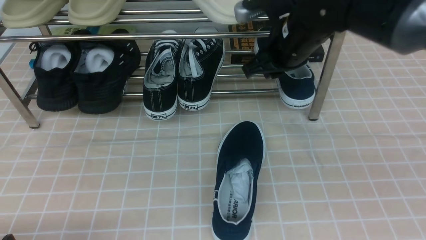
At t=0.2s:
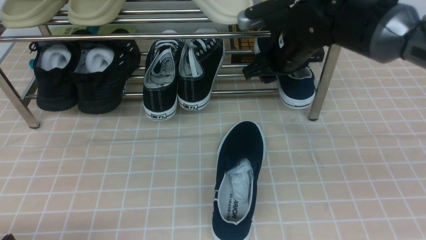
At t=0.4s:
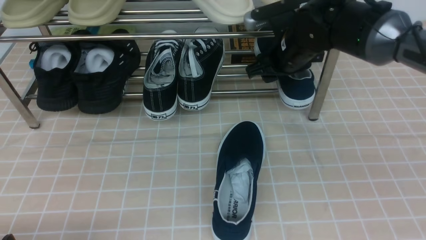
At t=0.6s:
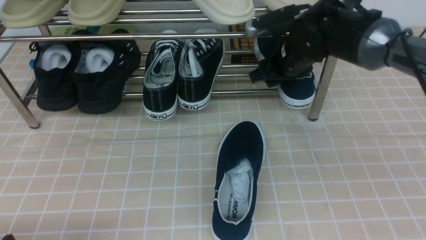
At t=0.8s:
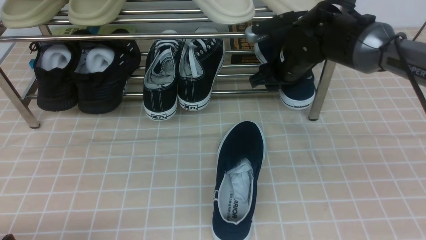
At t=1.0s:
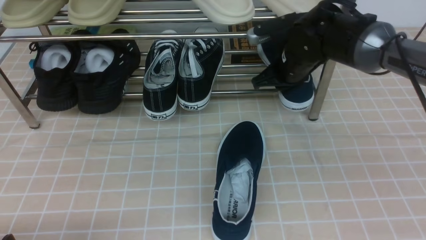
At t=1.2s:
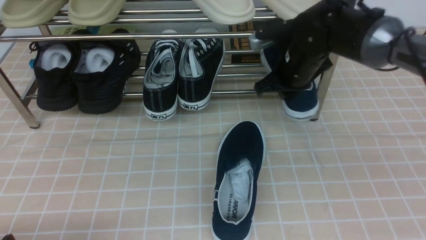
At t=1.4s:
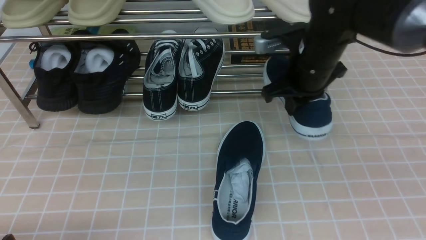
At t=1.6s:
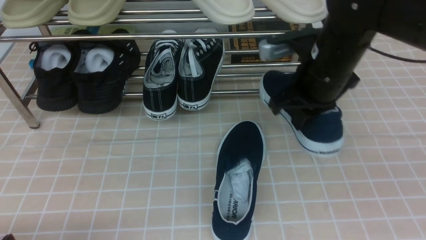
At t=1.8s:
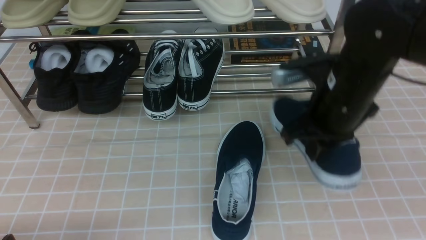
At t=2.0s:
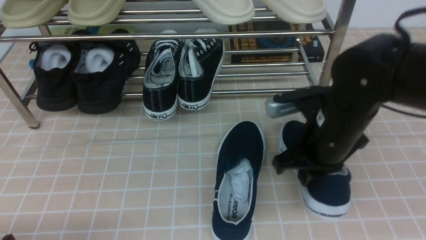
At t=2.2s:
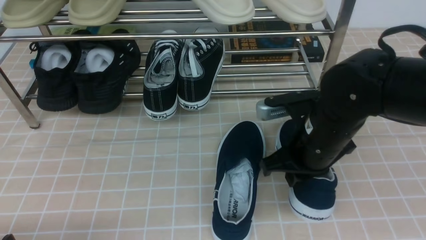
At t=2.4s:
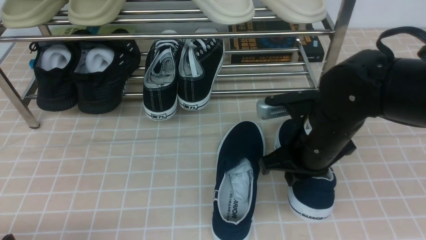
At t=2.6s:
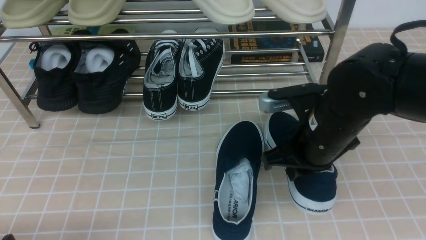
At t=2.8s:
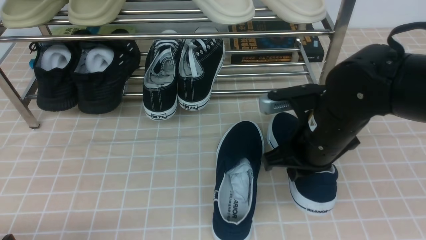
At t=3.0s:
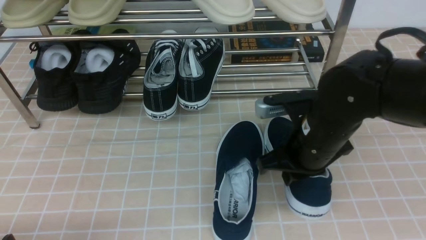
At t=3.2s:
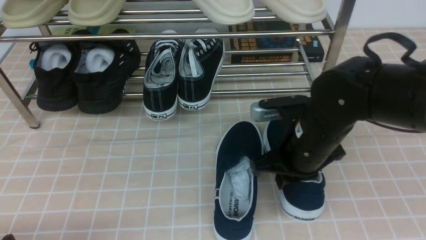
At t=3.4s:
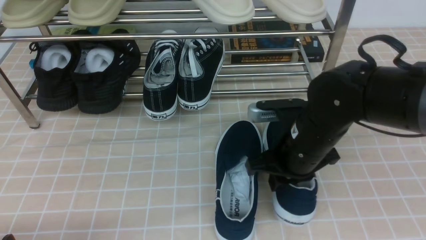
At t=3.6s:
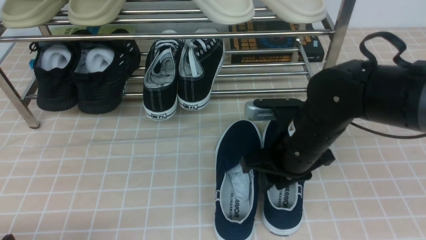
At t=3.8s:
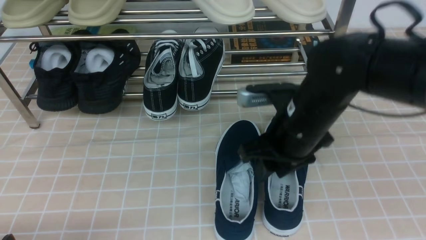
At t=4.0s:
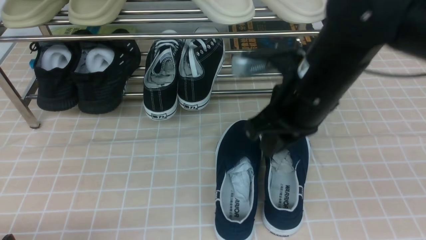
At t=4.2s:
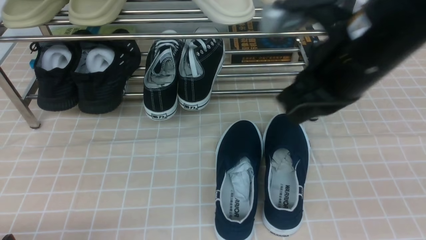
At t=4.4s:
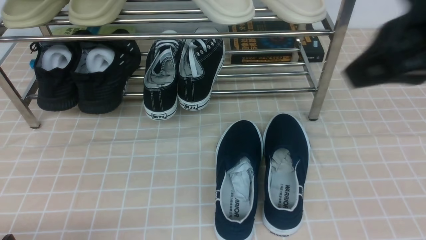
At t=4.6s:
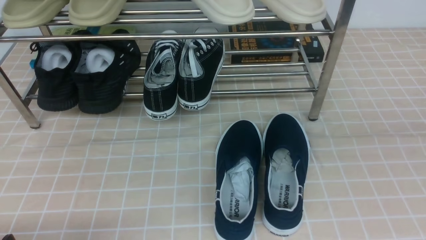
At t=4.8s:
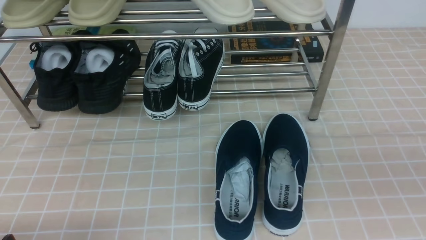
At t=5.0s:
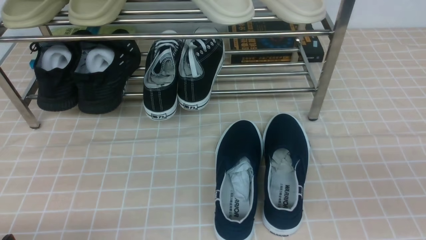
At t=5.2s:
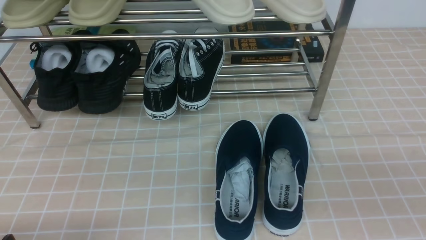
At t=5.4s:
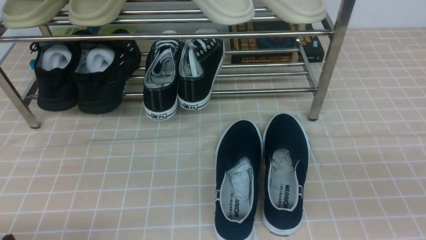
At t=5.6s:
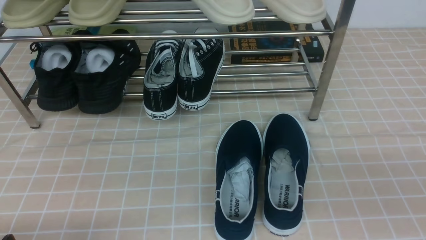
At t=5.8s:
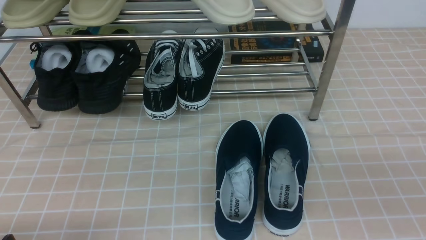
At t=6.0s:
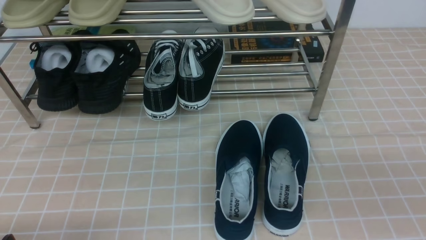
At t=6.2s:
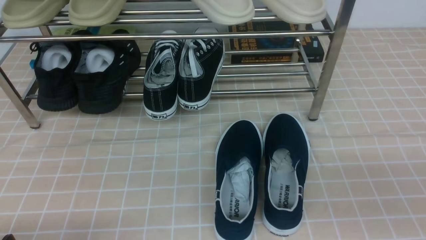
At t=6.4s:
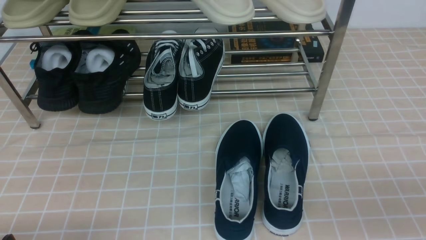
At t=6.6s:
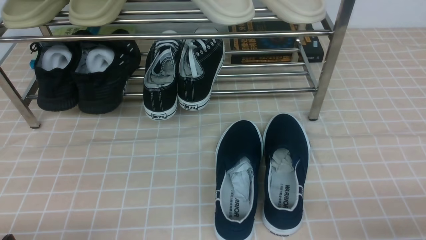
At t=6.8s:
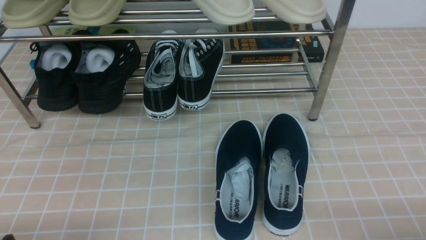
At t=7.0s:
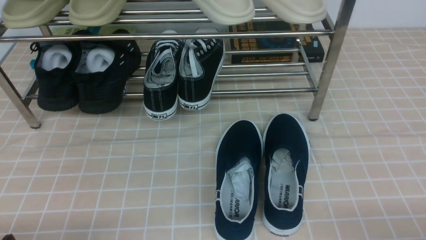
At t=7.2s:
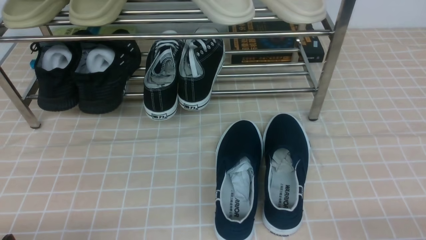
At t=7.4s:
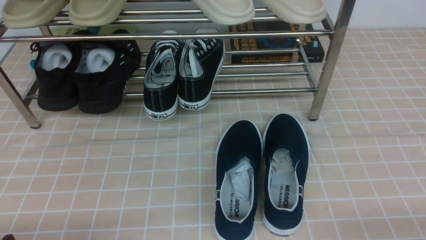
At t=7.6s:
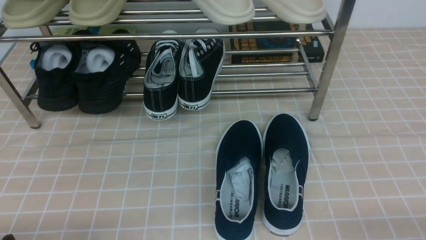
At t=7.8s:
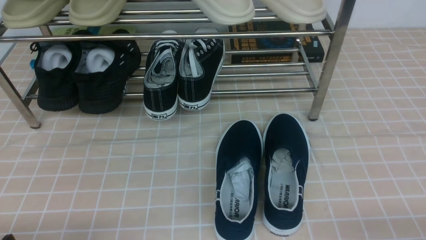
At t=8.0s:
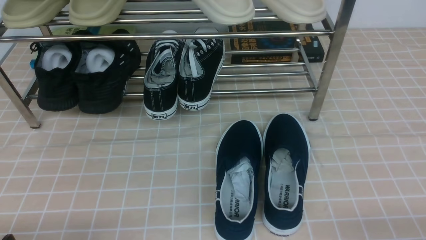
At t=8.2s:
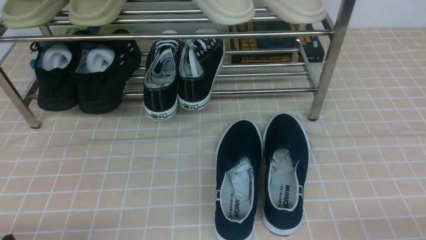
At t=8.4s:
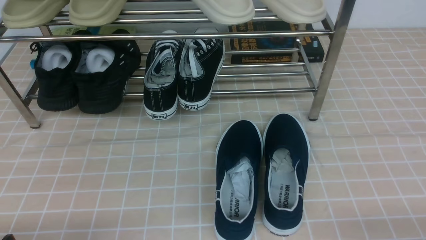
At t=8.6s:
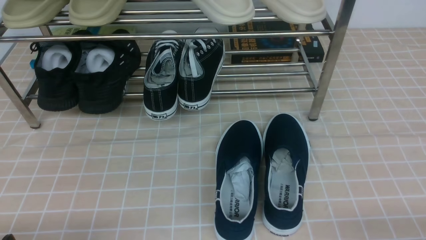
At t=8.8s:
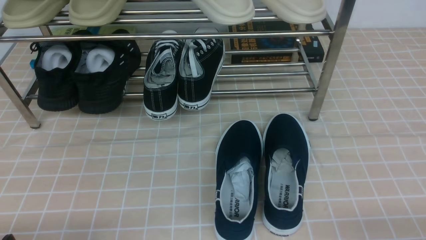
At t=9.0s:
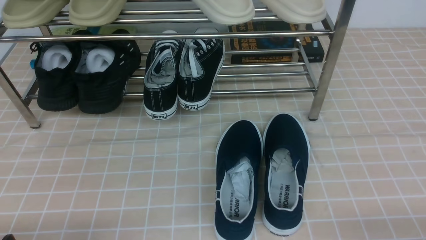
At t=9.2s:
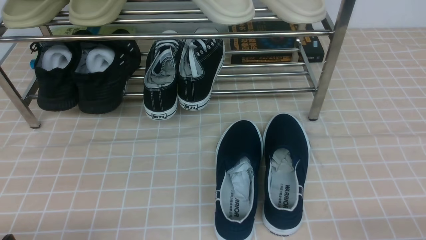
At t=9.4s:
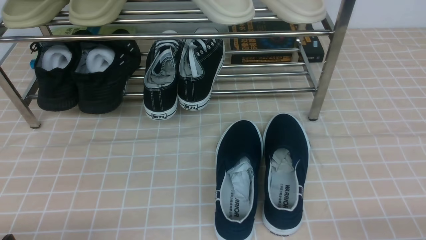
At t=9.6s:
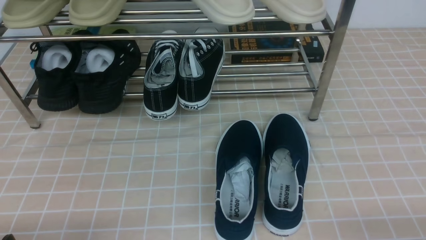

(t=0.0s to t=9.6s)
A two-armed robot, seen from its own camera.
Step, t=0.0s - t=0.8s: use the right arm to clamp a shoe on the right side of the shoe rack.
Step, t=1.0s - t=3.4s: use the right arm to take out the clamped shoe from the shoe rack and put it down.
t=0.0s - t=1.6s: The right gripper moves backward, approximately 5 cm, and closes its fingers.
t=1.6s - t=3.2s: The right gripper shifts about 10 cm downward and backward.
t=3.2s - t=4.8s: The right gripper goes about 30 cm backward, upward and to the right, and opens, then closes again.
t=4.8s - t=6.4s: The right gripper is displaced downward by roughly 15 cm.
t=6.4s - t=8.0s: The right gripper heads downward, covering some 10 cm.
t=8.0s - t=9.6s: Both grippers stay put.
